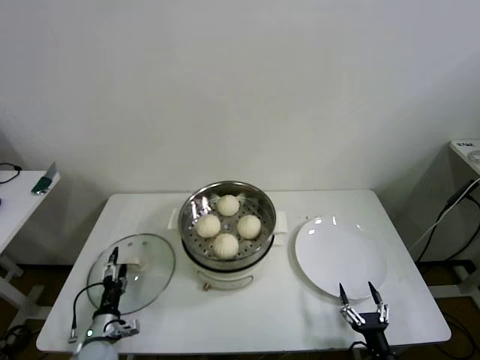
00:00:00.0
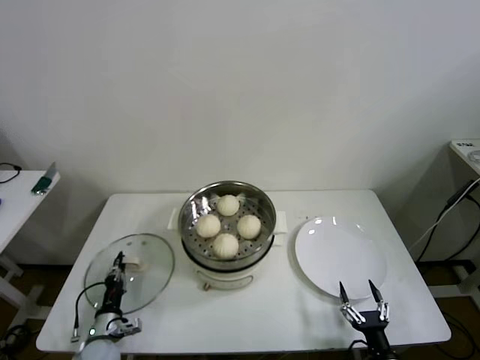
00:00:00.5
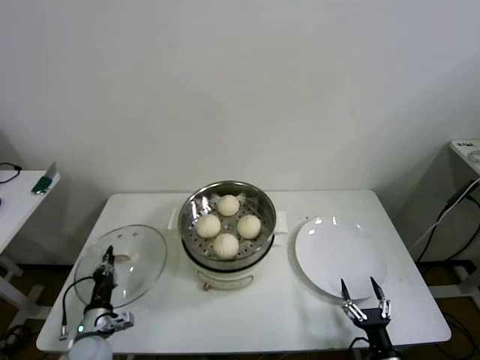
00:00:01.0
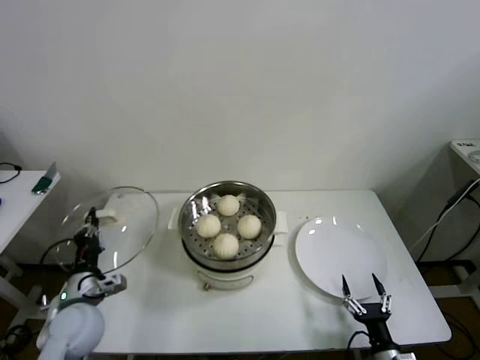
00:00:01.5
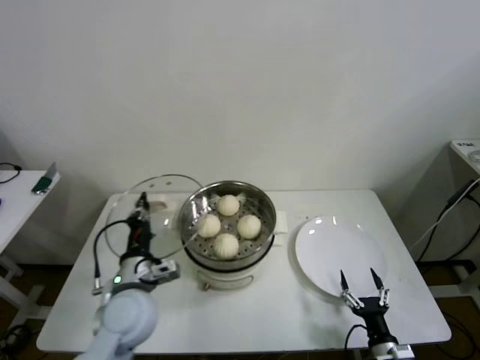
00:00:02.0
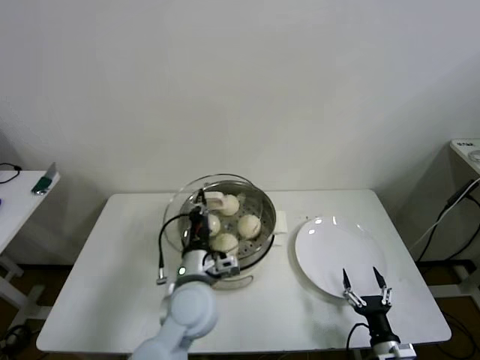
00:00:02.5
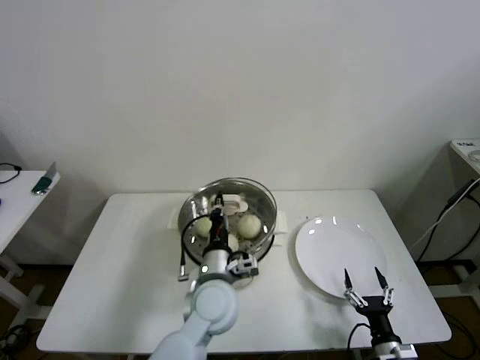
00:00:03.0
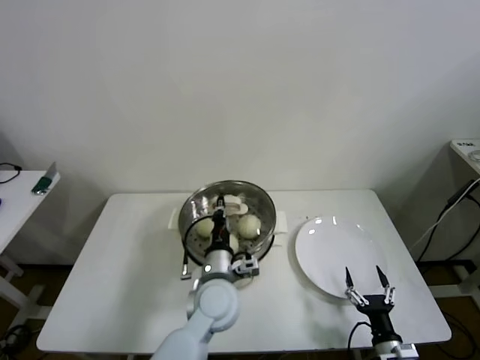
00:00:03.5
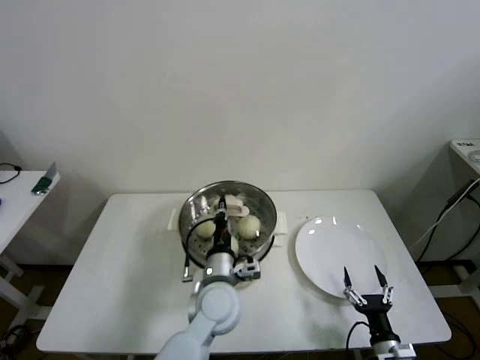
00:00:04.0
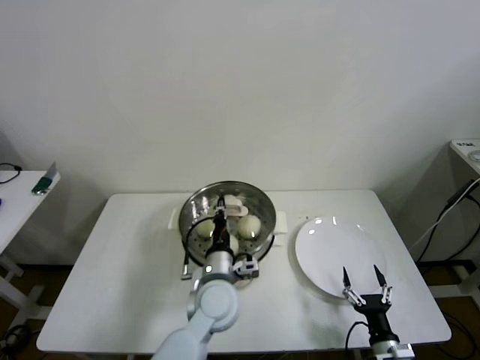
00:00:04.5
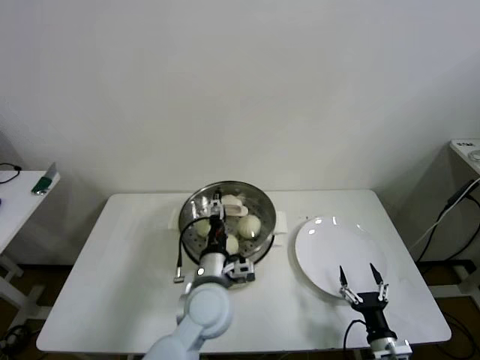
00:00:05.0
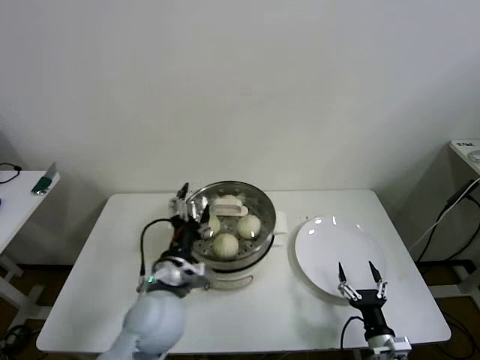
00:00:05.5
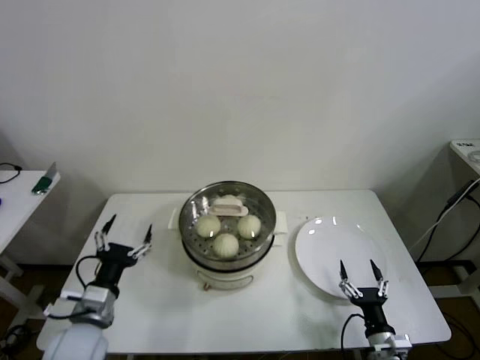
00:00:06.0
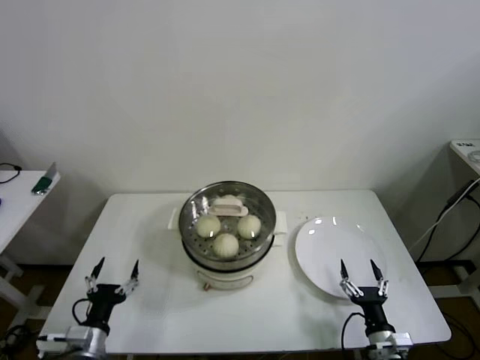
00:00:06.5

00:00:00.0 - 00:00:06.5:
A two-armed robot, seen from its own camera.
Step, 00:00:01.0 - 00:00:04.5: Place the pot lid on the steamer with left gripper.
00:00:00.0 - 00:00:02.0: The left gripper heads upward and to the right, covering roughly 25 cm, and closes.
00:00:02.0 - 00:00:04.5: The left gripper moves to the right, approximately 15 cm.
00:00:04.5 - 00:00:06.5: The left gripper shifts roughly 30 cm to the left and backward, and opens its fingers.
